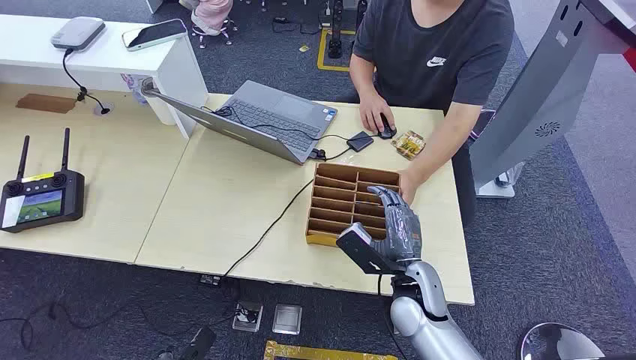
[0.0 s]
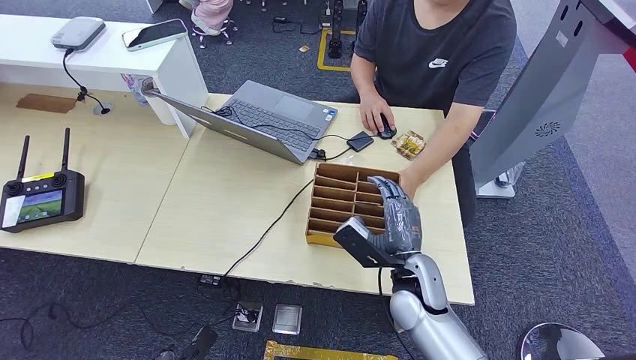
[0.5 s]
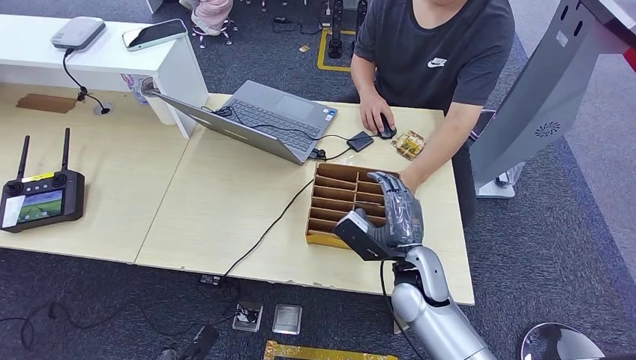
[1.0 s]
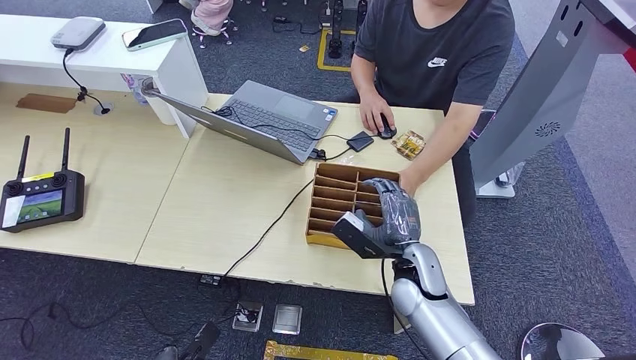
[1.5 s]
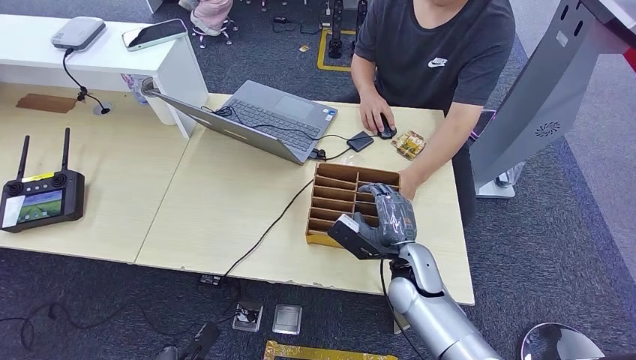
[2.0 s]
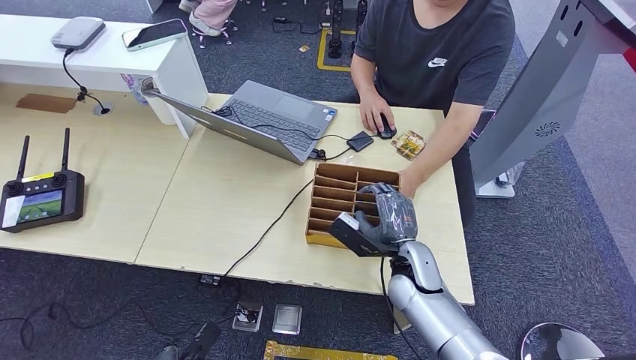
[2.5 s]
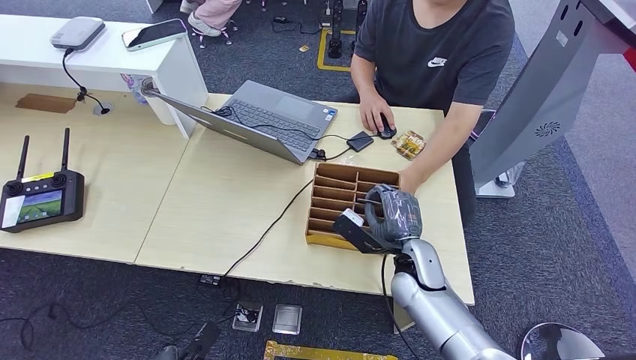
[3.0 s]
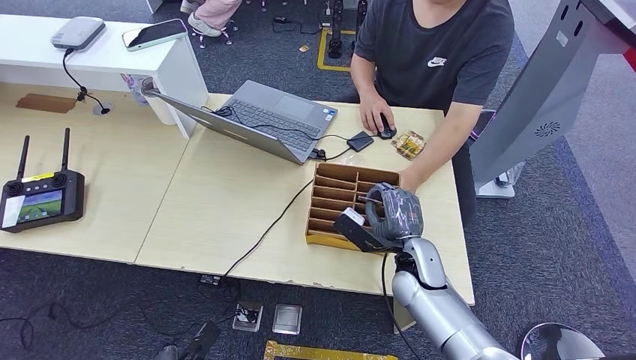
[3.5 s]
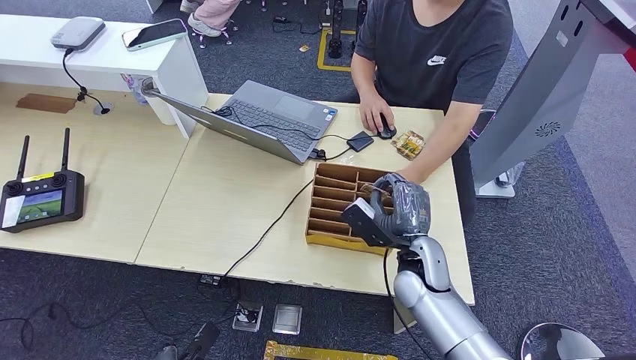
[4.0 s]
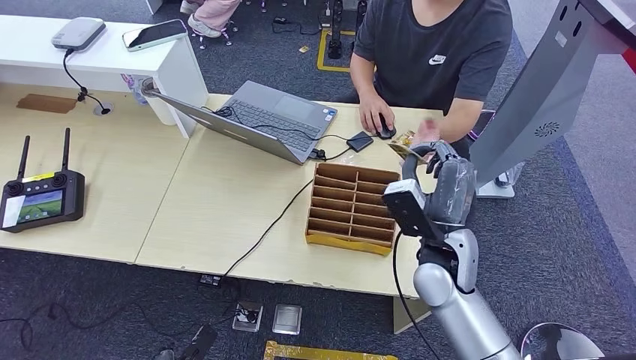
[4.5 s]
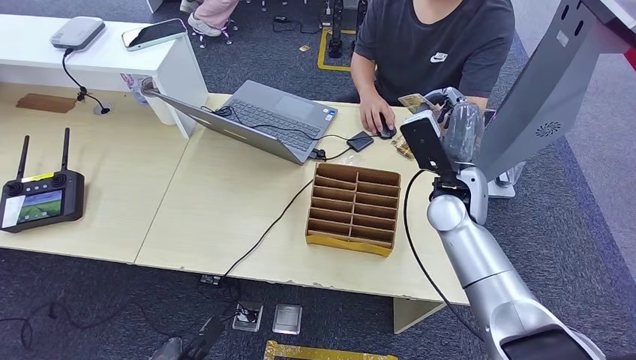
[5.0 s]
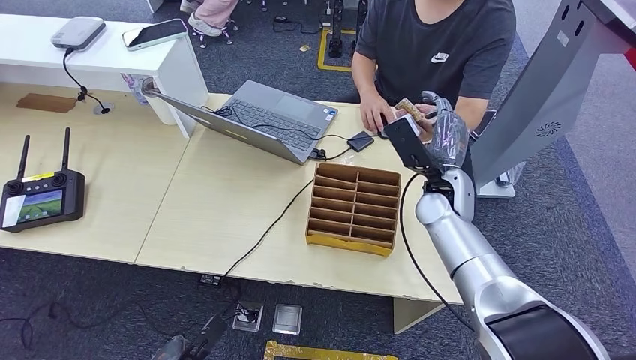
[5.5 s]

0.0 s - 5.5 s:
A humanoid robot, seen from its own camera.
Step, 0.0 s - 3.5 s: Pick up the room card from the card holder.
Step, 4.0 s - 5.5 s: Hand the room card to the target.
2.0 s - 3.5 s: There are only small adjustments of the hands.
3.5 s - 5.5 s: The right hand shifts roughly 15 cm upward and forward.

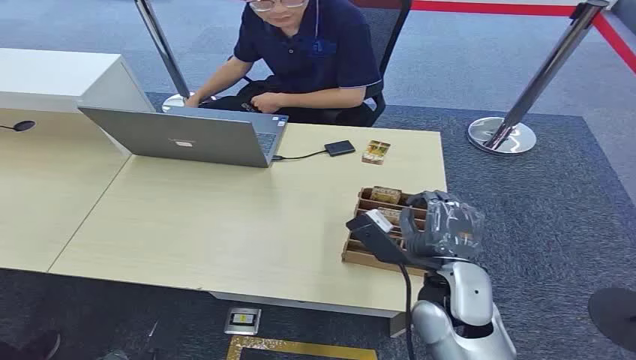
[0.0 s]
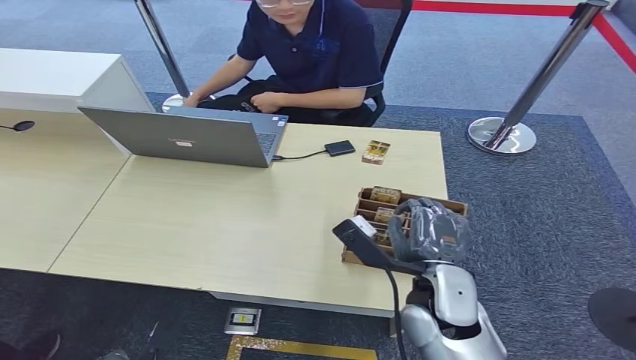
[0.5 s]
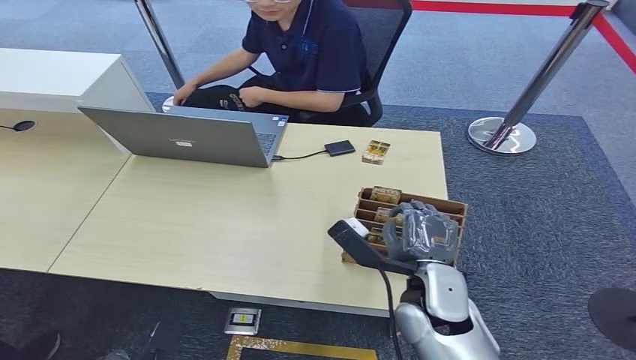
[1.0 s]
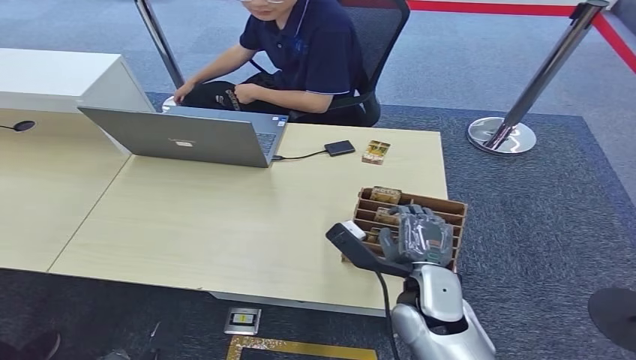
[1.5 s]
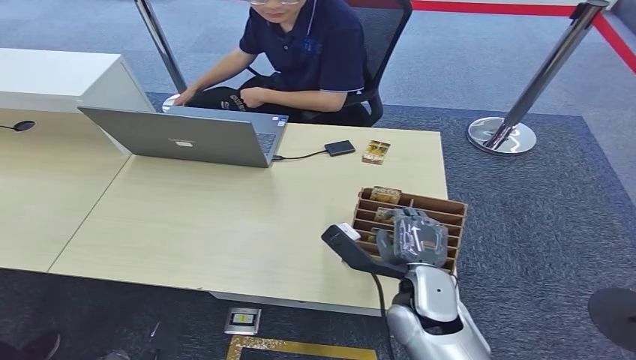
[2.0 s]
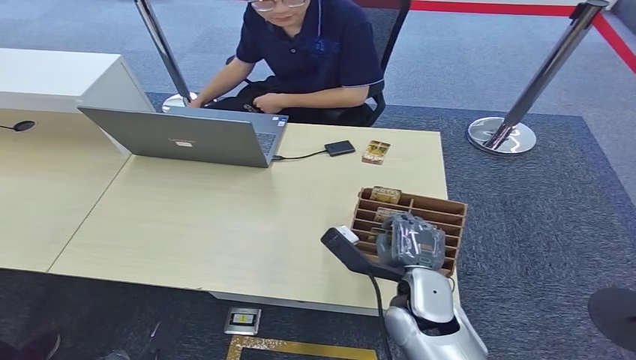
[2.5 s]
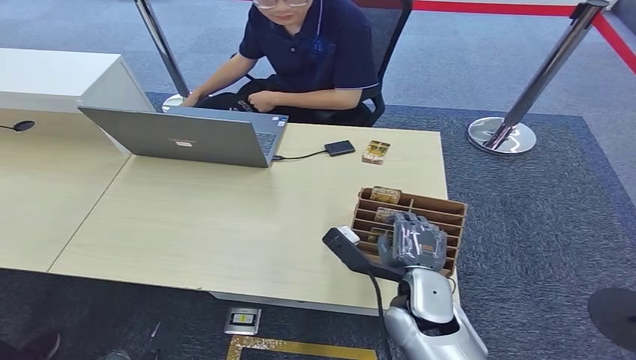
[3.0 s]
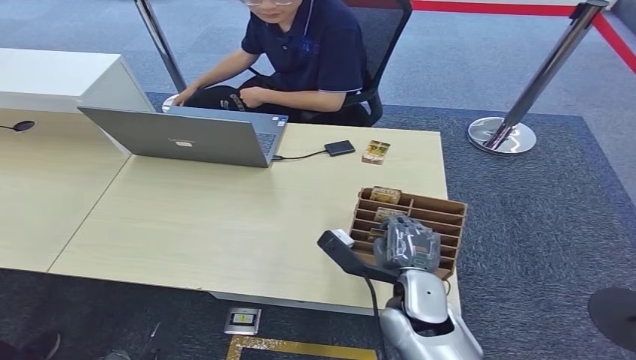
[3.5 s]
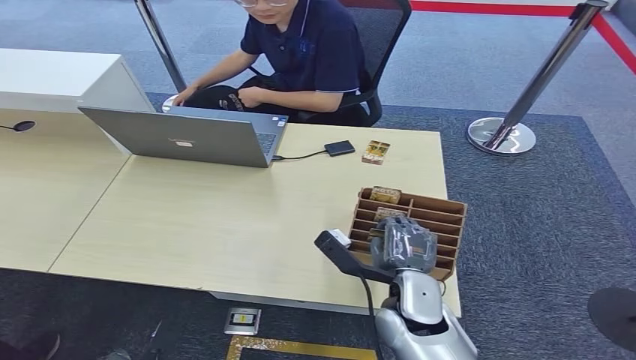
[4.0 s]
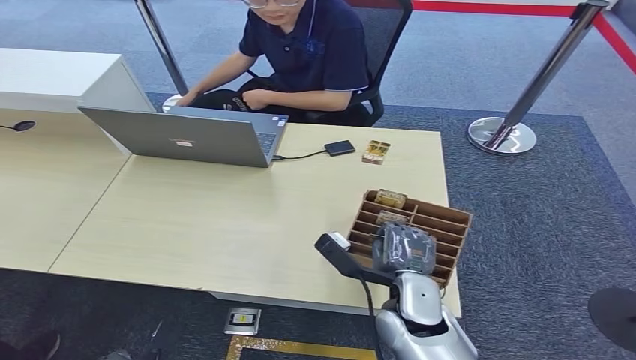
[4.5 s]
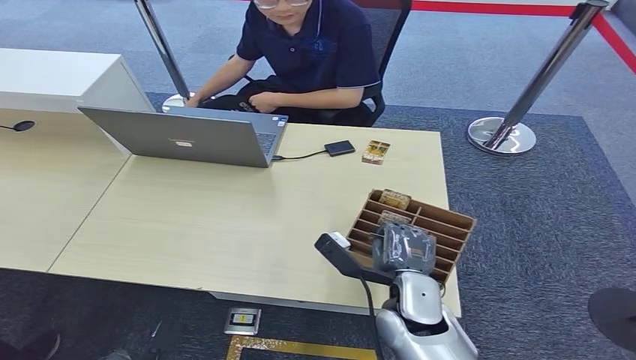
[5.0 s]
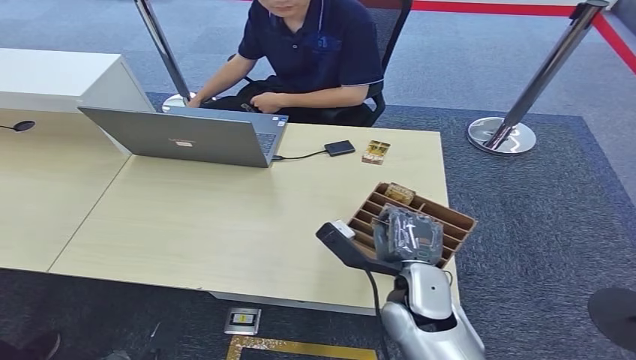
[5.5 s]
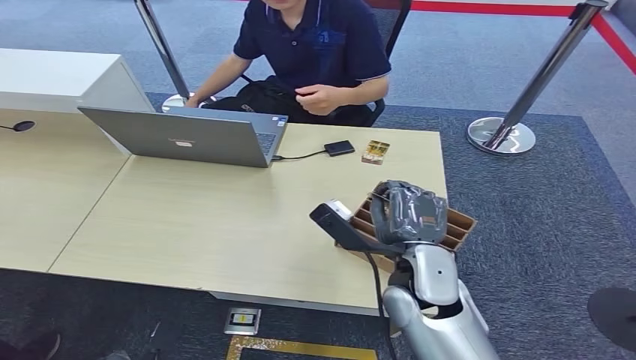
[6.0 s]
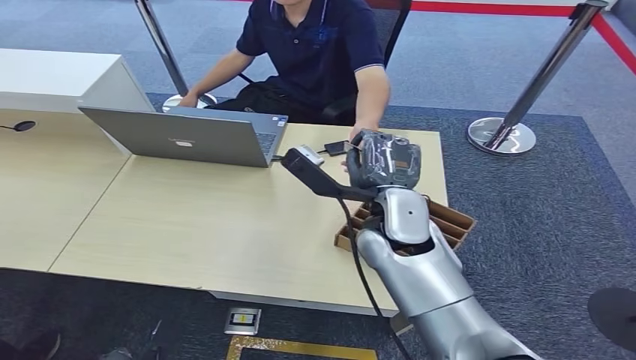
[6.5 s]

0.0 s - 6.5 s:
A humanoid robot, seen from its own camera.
Step, 0.0 s - 5.0 s: Pick up the room card from the card holder.
Step, 5.5 s - 6.0 s: Hand the room card to the target.
2.0 s - 4.5 s: The hands make only small movements.
4.5 s - 6.5 s: The right hand travels upward and forward by some 20 cm.

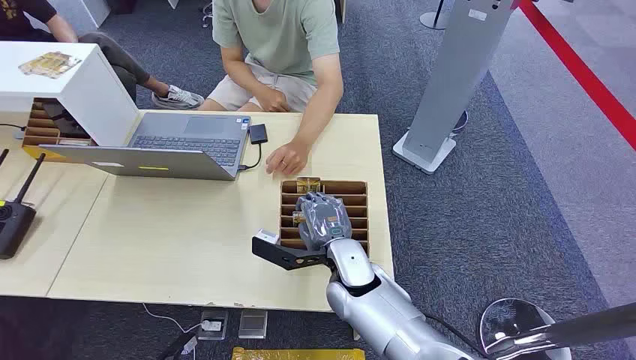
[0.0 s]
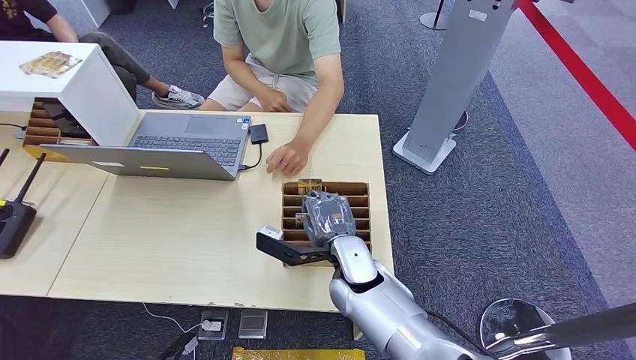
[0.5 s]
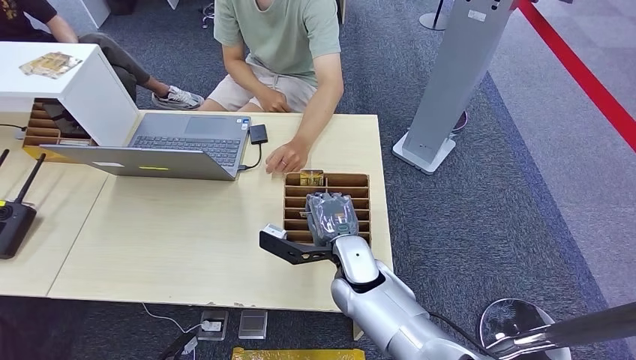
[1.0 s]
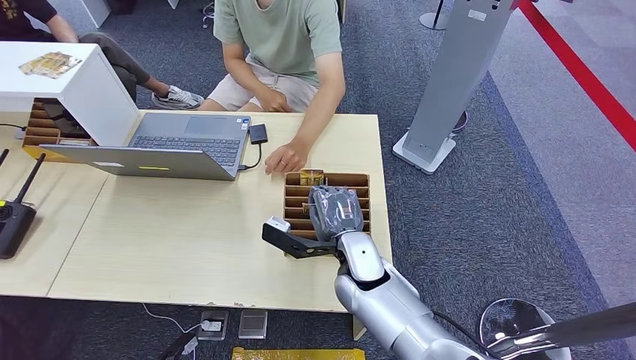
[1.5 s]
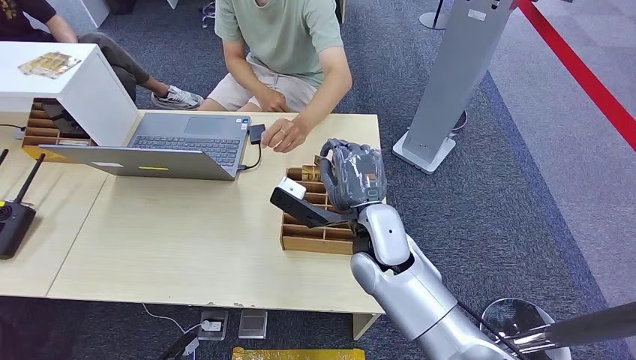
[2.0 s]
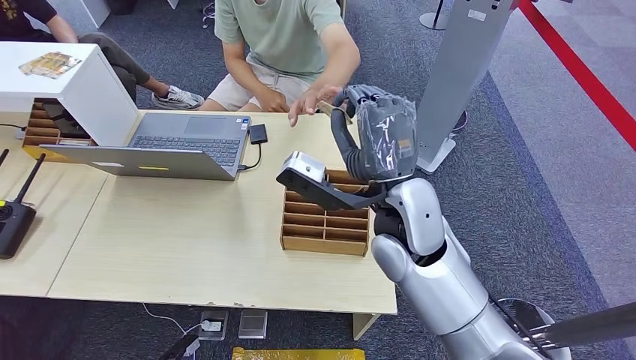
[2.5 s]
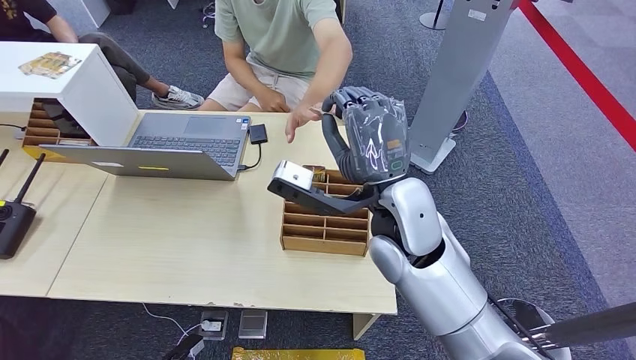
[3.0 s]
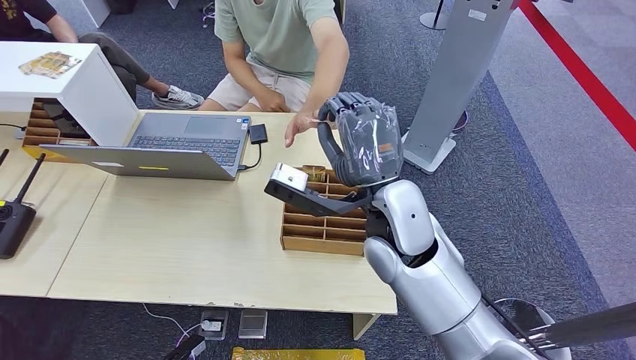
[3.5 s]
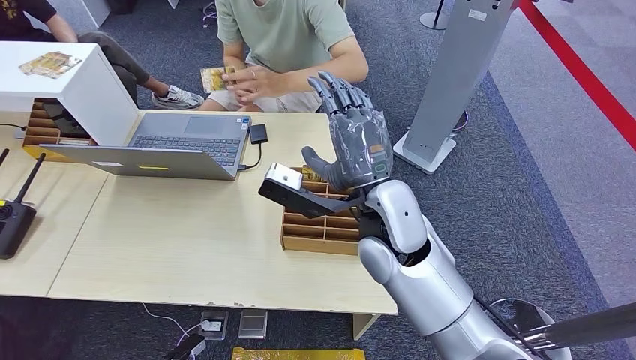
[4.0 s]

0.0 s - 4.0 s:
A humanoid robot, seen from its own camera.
Step, 0.0 s - 1.5 s: Pick up the room card from the card holder.
Step, 3.0 s - 4.0 s: Hand the room card to the target.
2.0 s - 4.0 s: The right hand heads upward, covering about 5 cm.

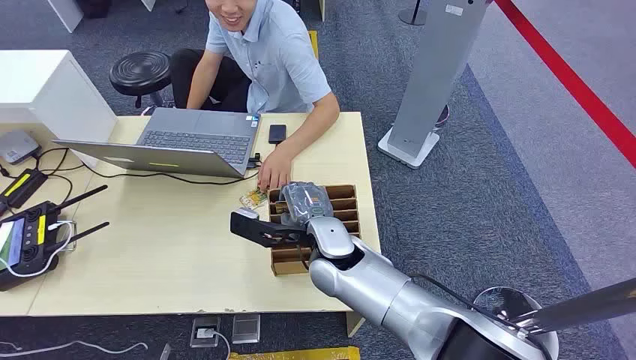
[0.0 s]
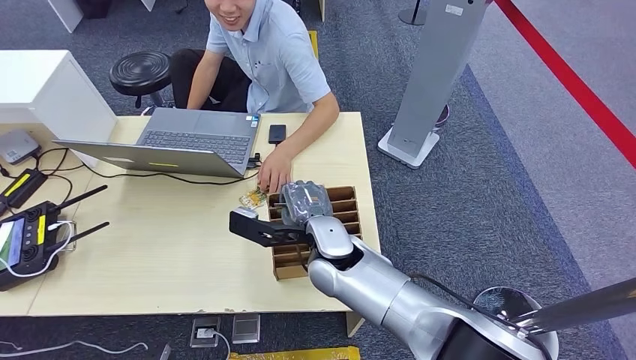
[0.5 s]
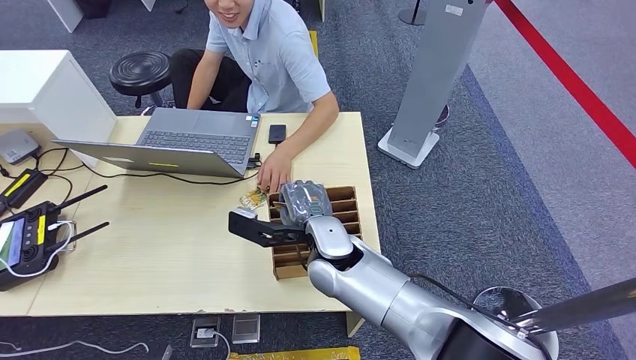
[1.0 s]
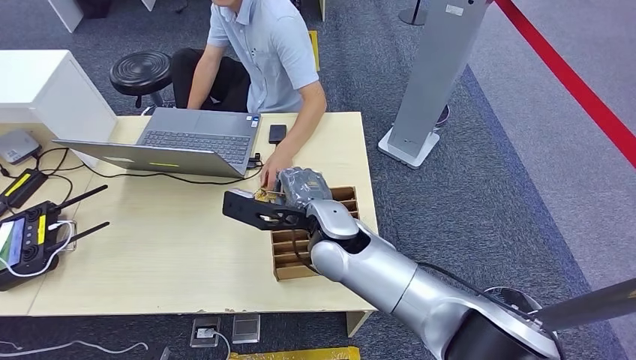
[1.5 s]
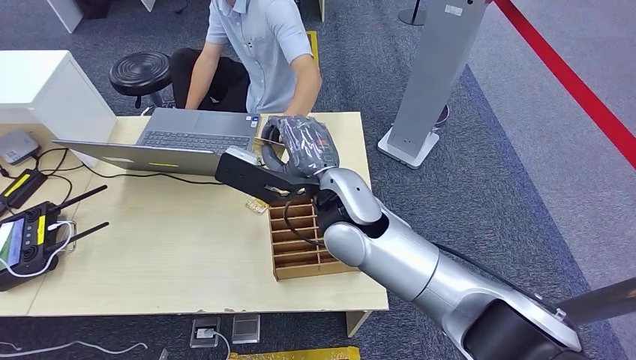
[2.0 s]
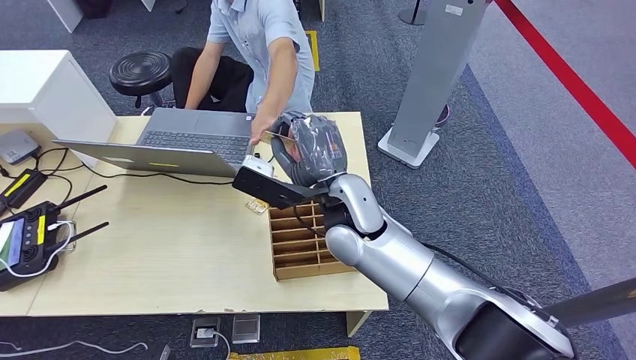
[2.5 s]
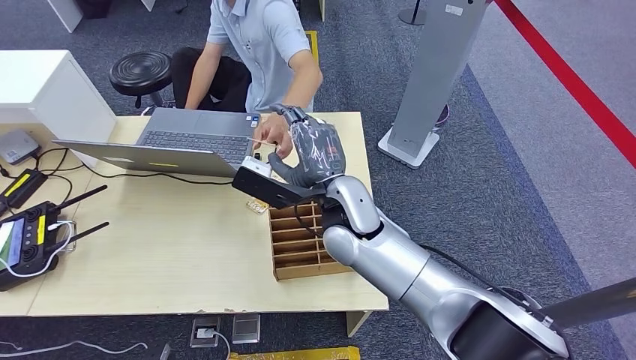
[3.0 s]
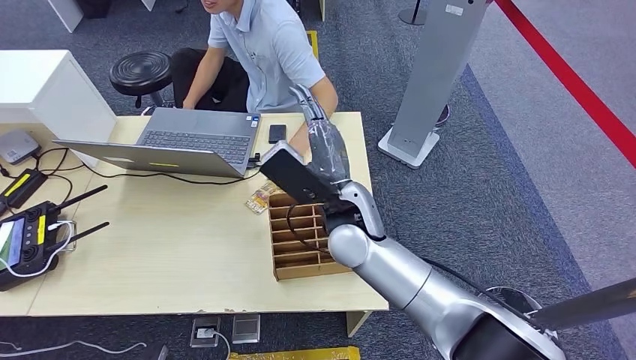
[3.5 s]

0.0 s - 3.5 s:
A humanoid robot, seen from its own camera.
Step, 0.0 s - 1.5 s: Pick up the room card from the card holder.
Step, 2.0 s - 3.5 s: Hand the room card to the target.
